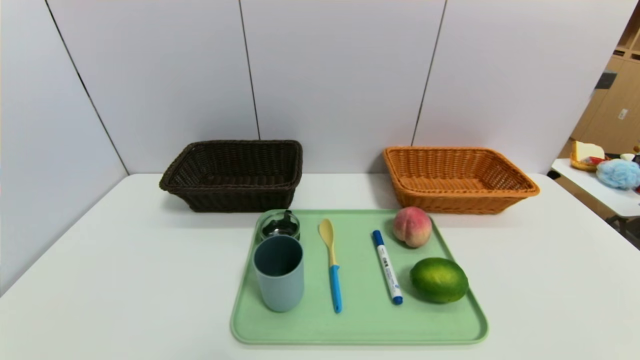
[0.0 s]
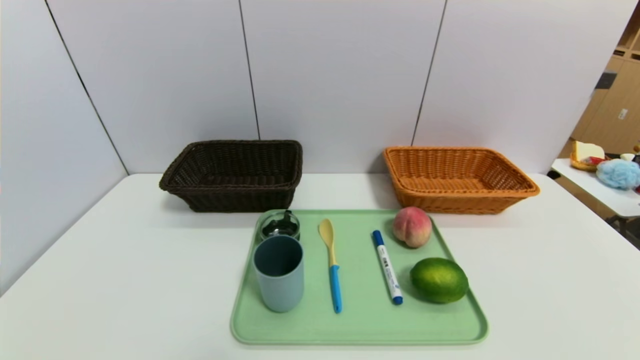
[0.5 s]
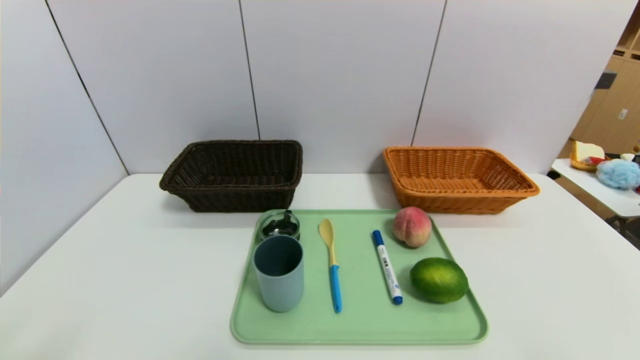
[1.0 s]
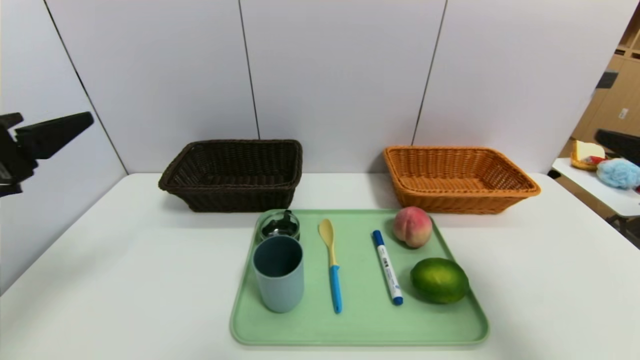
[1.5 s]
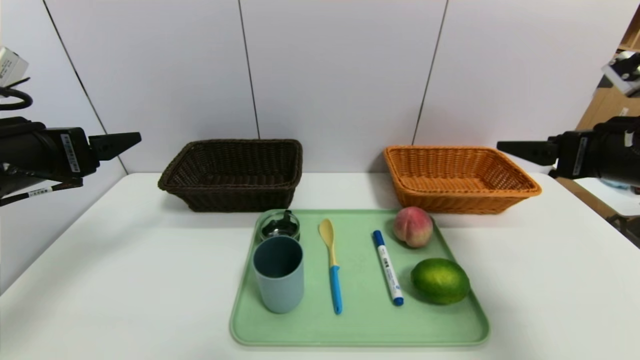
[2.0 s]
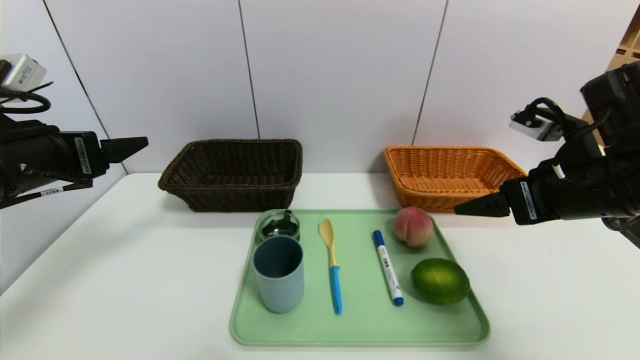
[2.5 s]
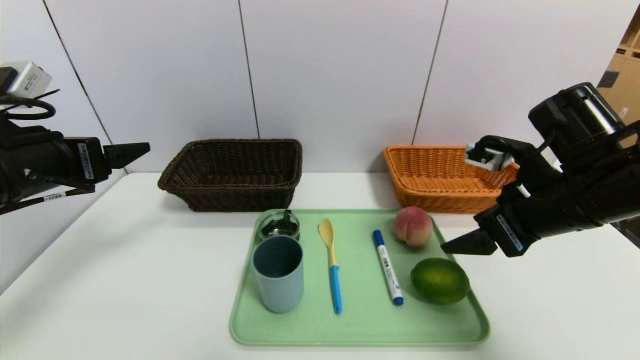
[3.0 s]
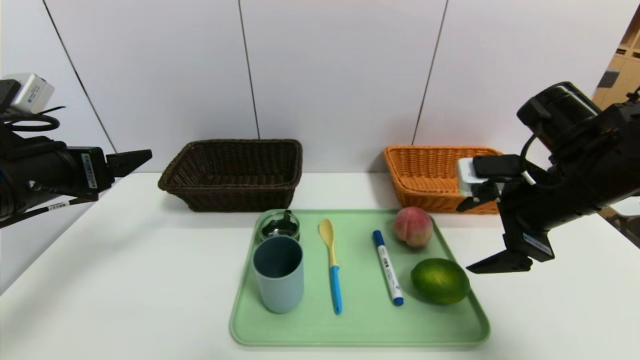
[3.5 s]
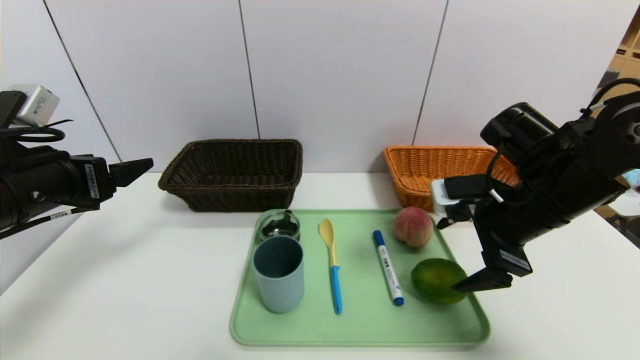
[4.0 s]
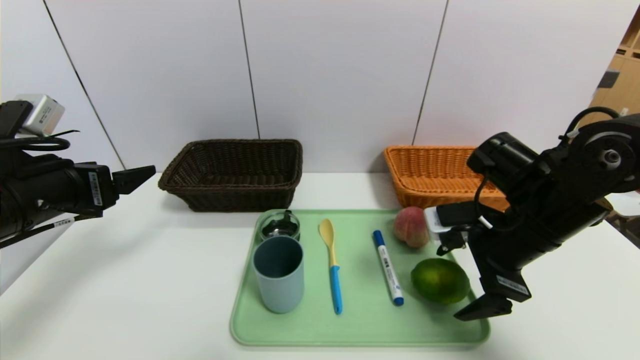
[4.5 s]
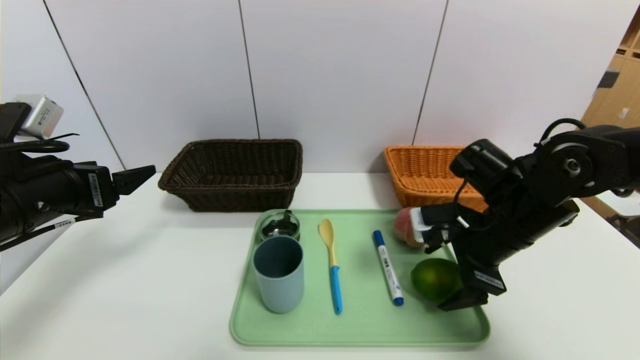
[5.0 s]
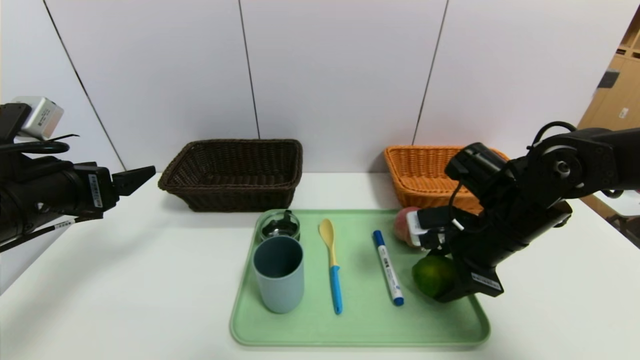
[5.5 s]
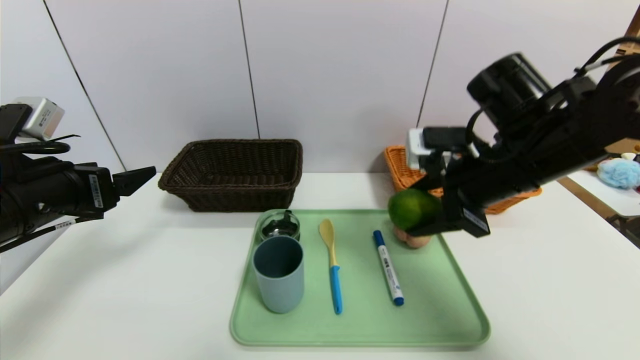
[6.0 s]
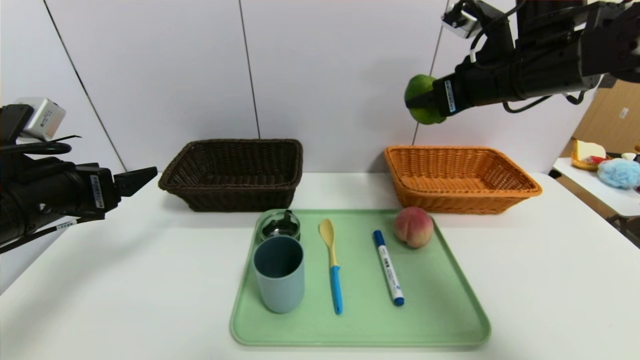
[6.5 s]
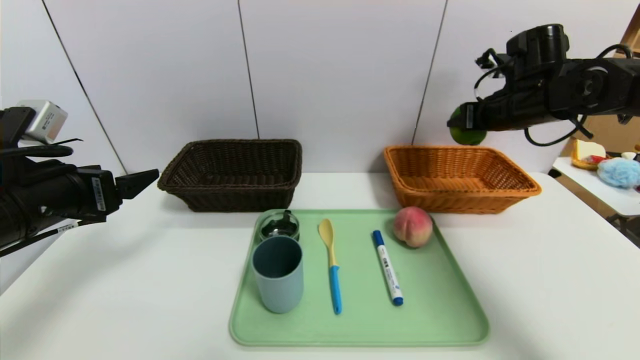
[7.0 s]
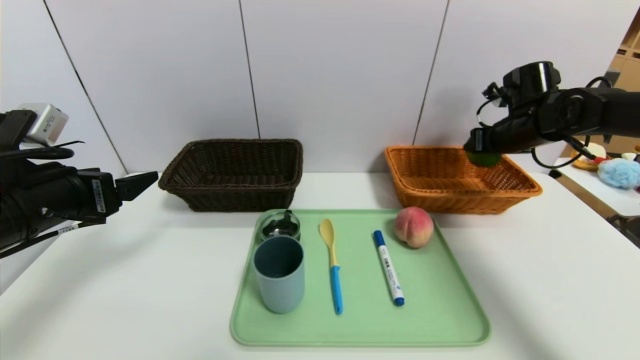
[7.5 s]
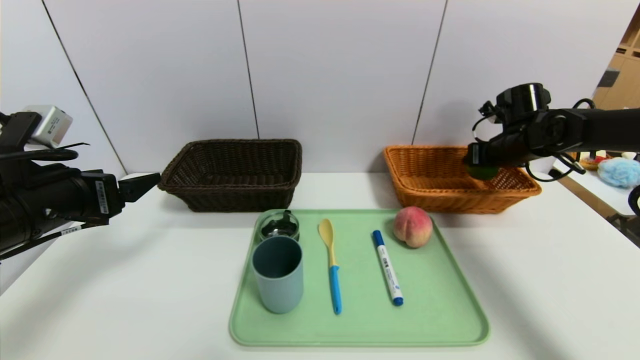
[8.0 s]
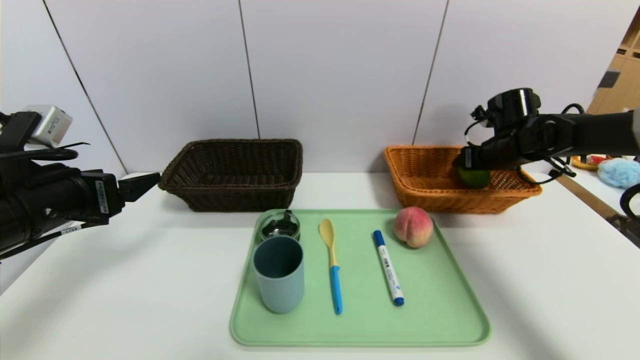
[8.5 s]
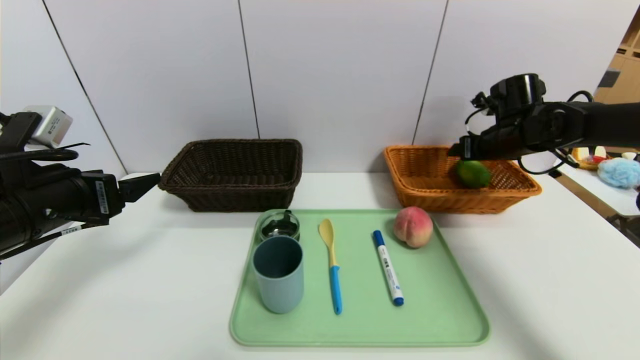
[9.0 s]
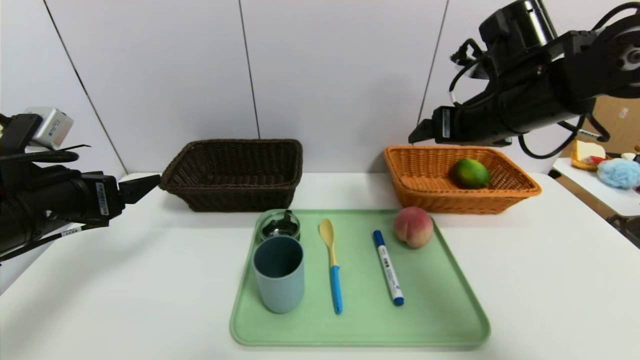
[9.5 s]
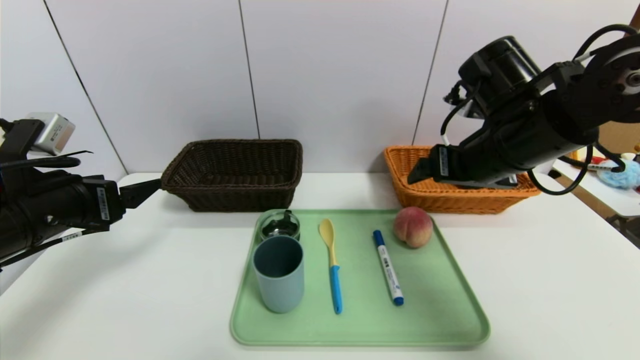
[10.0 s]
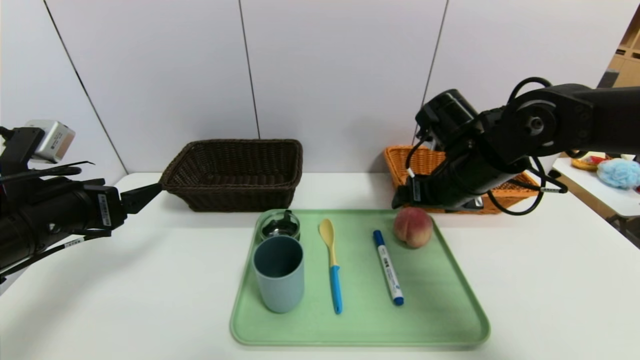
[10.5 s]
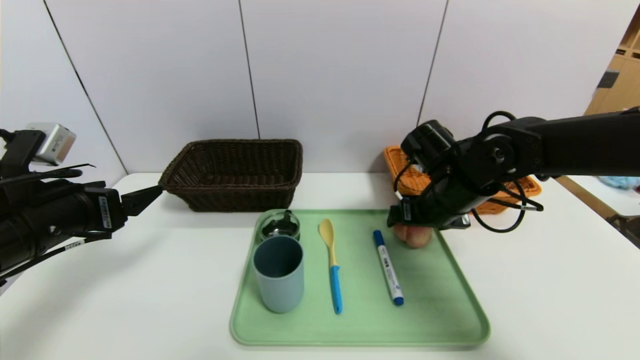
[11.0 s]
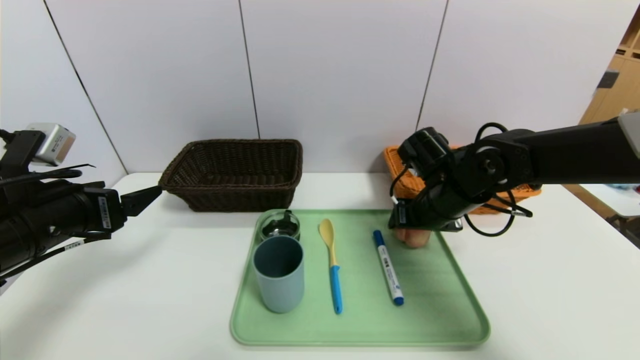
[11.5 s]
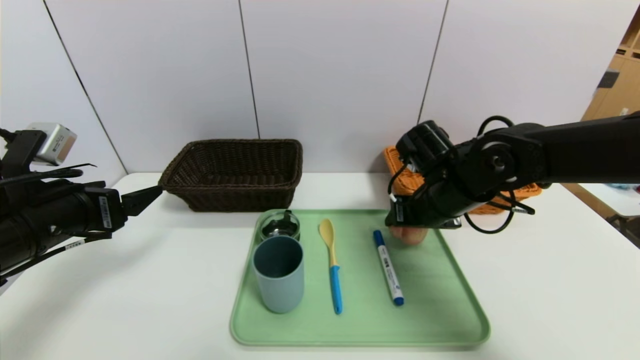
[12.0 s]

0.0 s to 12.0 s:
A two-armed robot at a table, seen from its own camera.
Task of the whole recording: place the food in the right basket with the right gripper, and place the non food items in the left basket with the left gripper.
Step, 0.0 to 9.0 s: Grasp the lime and put it in the right basket.
0.0 to 2.0 s: Both grippers move forward and upward, some 30 cm.
2.0 to 4.0 s: The right gripper heads to the left and downward, covering roughly 10 cm.
4.0 to 6.0 s: The right gripper heads upward, covering about 5 cm, and closes.
6.0 to 8.0 s: The right gripper heads forward, to the right and downward, covering some 25 cm.
8.0 to 10.0 s: The right gripper shifts about 20 cm backward, to the left and upward, and opens.
10.0 to 12.0 s: The right gripper goes about 10 cm downward, and closes.

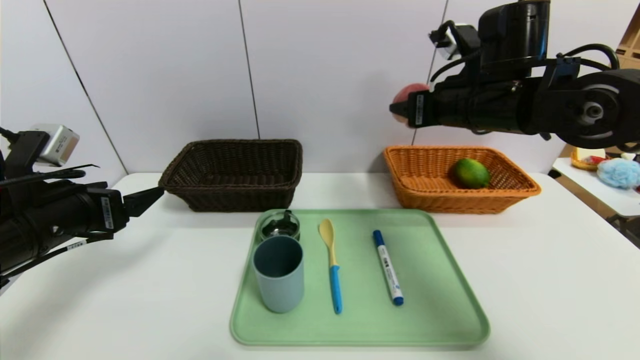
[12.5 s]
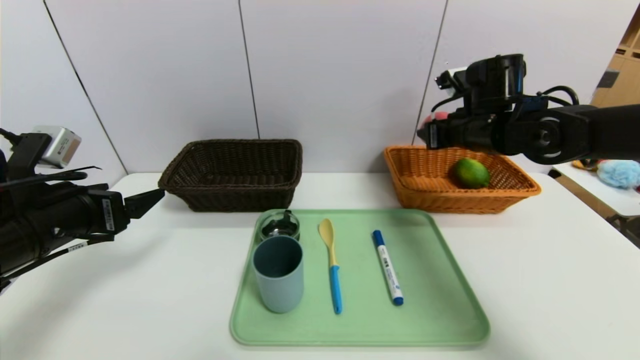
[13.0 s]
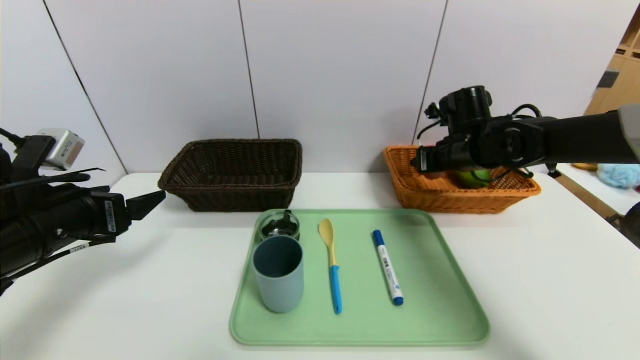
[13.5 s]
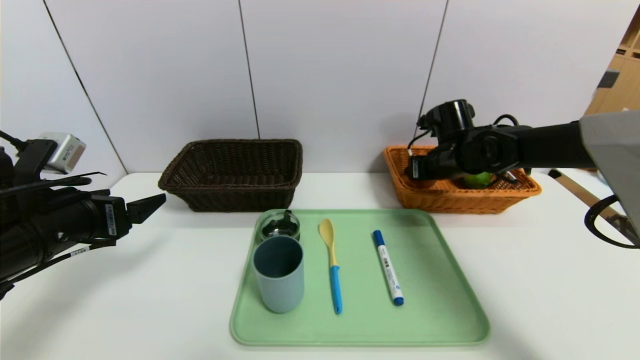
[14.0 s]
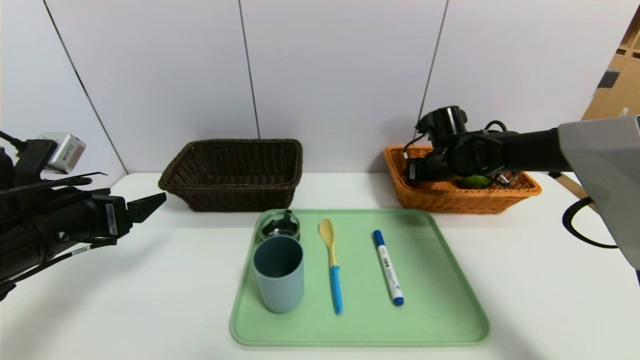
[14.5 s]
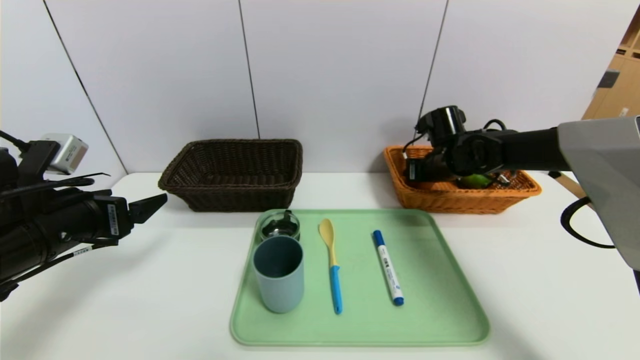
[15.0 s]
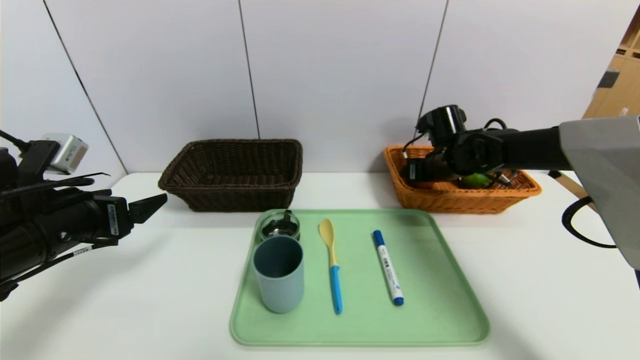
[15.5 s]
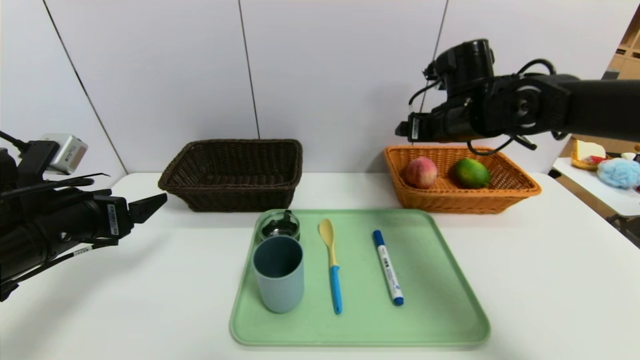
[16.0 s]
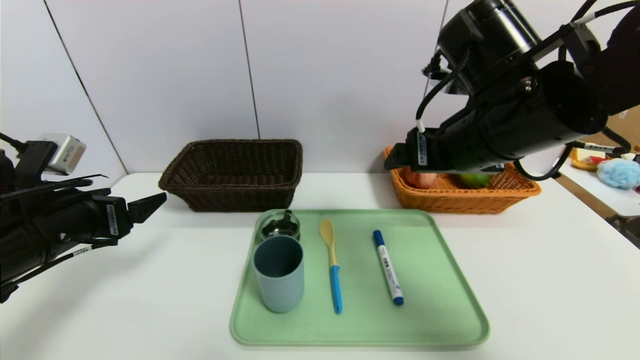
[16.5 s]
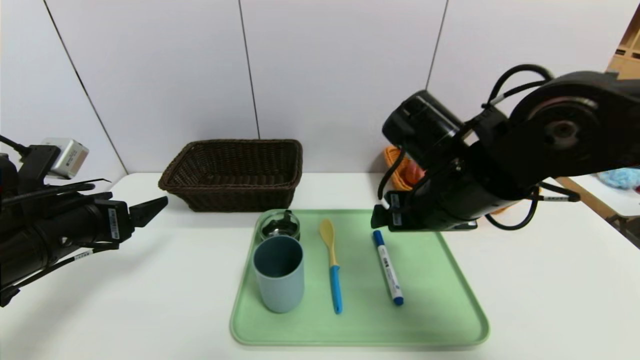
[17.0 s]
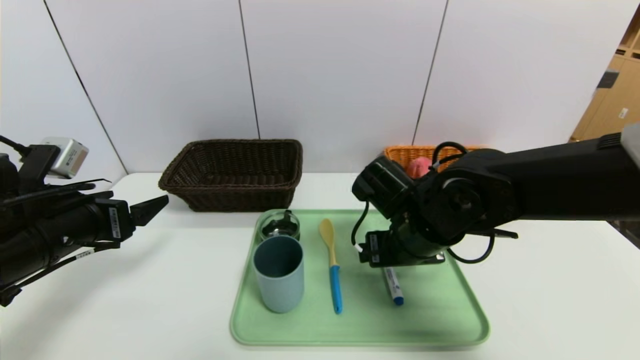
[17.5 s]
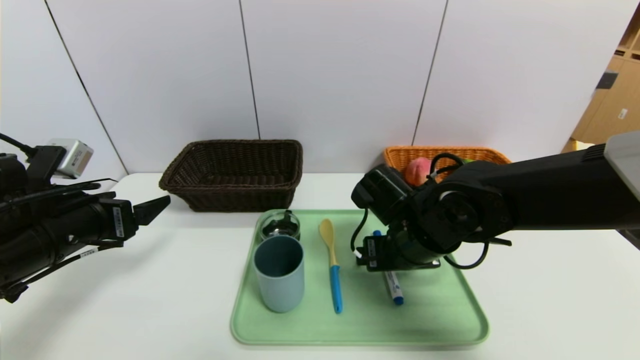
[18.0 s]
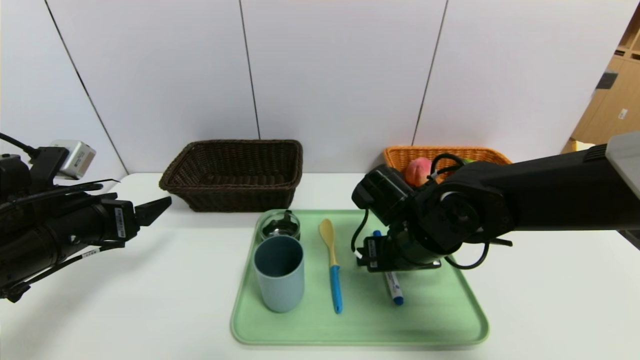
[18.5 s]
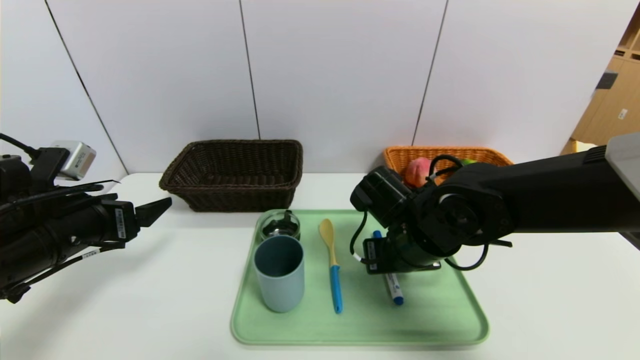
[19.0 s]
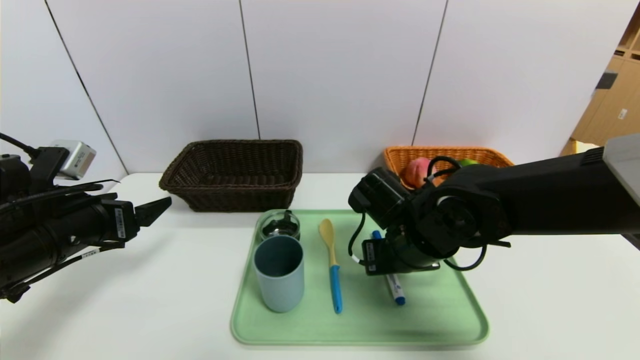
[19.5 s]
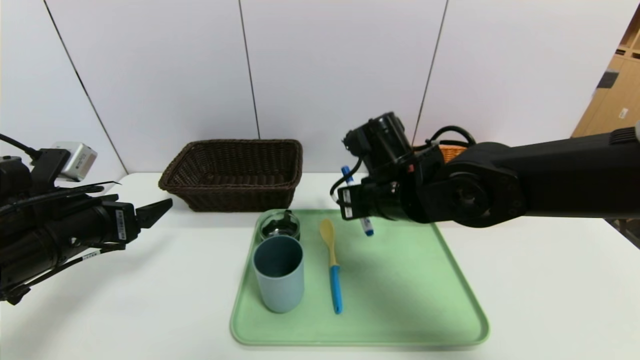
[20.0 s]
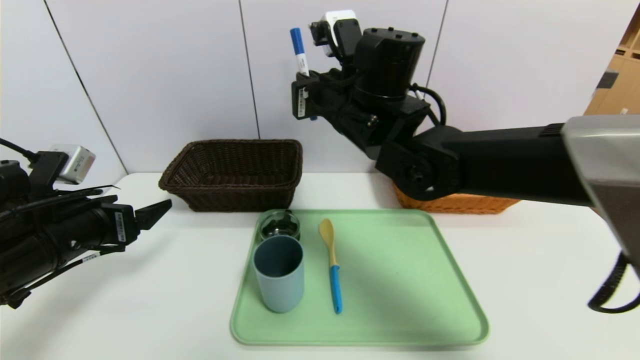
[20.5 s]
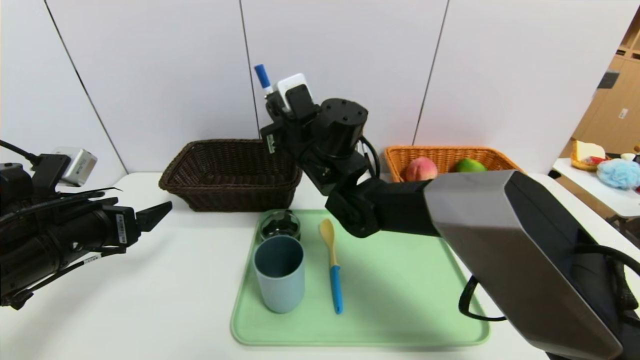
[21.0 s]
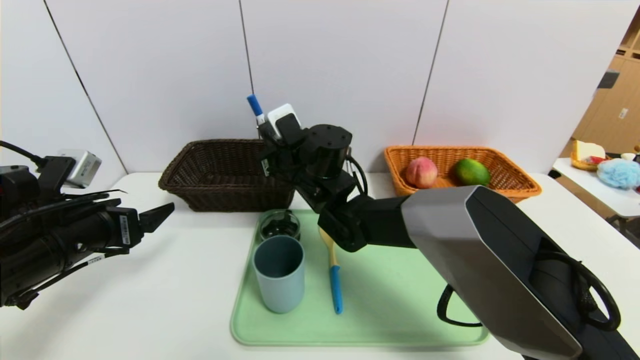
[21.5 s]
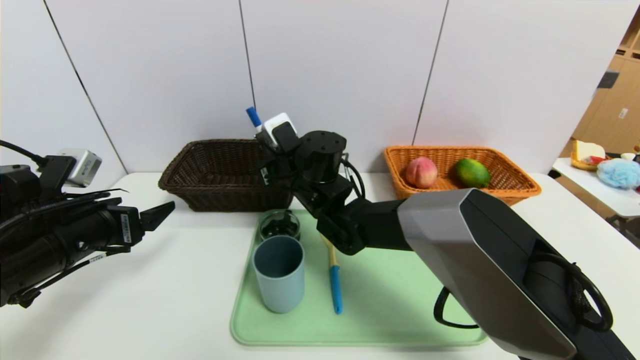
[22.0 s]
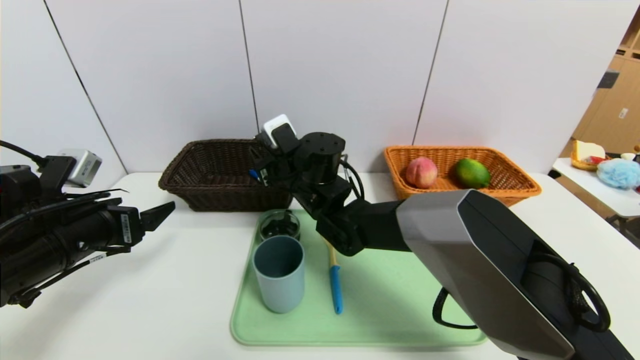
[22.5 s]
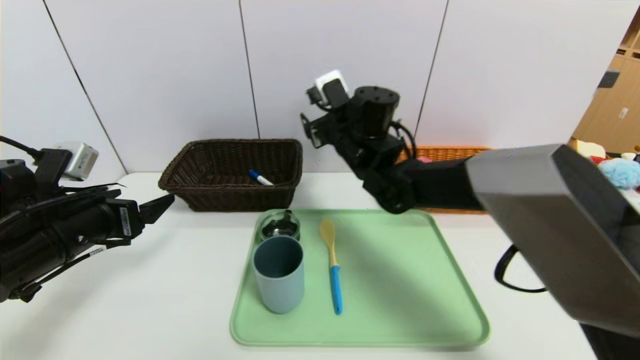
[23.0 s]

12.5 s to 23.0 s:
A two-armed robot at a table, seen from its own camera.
Task of the whole recording: place the food in the right basket with the right gripper, and place the non food items in the left basket with the left gripper.
Step, 12.5 to 16.0 s: Grasp the peach and put it in the right basket.
12.5 to 14.5 s: The right gripper moves downward and forward, some 20 cm.
14.5 to 16.5 s: The right gripper moves backward and upward, about 25 cm, and opens its fingers.
16.5 to 19.0 s: The right gripper travels downward by approximately 15 cm, and closes.
19.0 to 21.0 s: The right gripper goes roughly 20 cm to the left, forward and upward, and closes up.
21.0 to 23.0 s: The right gripper moves to the right, approximately 5 cm, and opens up.
